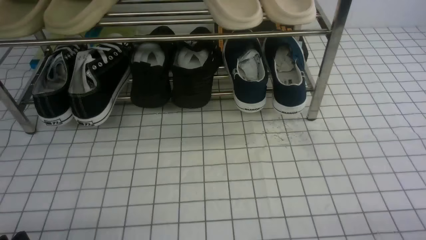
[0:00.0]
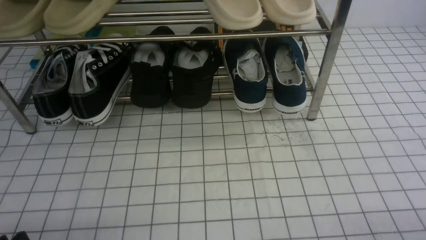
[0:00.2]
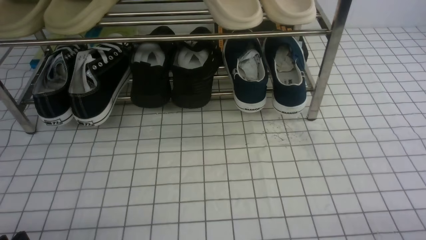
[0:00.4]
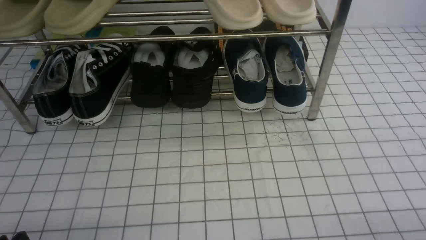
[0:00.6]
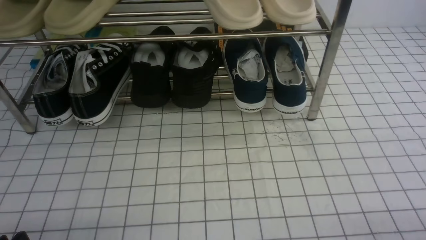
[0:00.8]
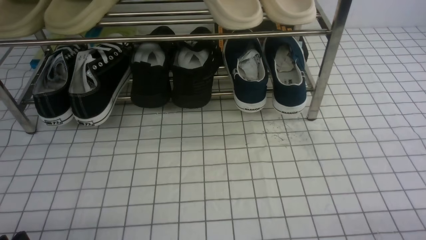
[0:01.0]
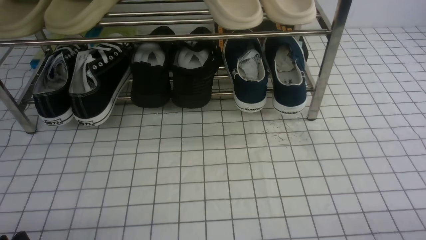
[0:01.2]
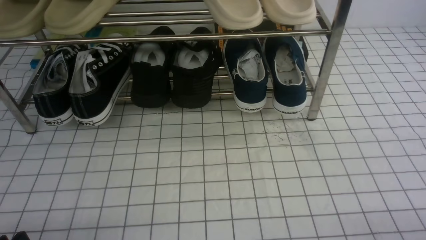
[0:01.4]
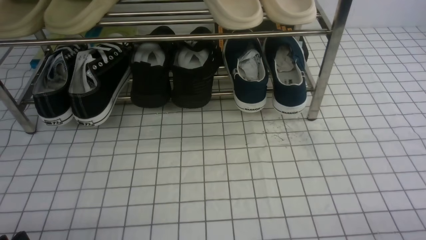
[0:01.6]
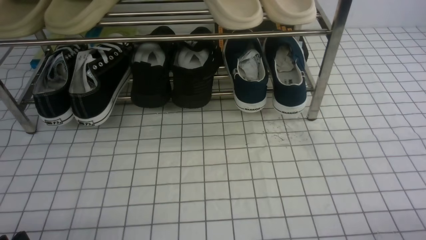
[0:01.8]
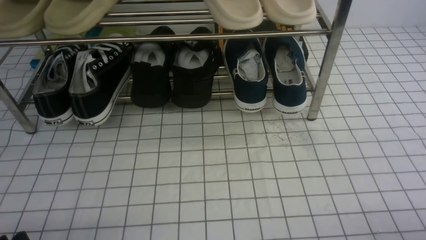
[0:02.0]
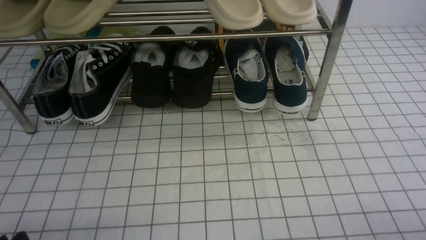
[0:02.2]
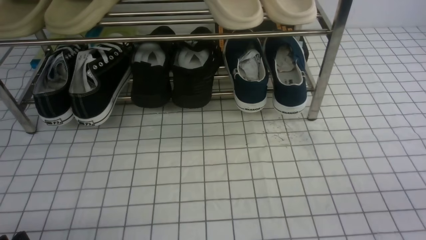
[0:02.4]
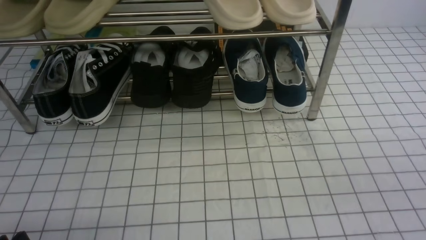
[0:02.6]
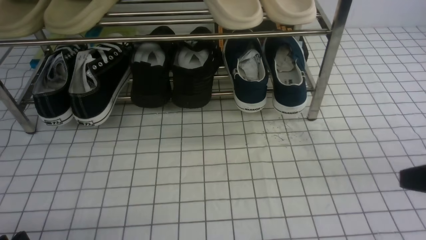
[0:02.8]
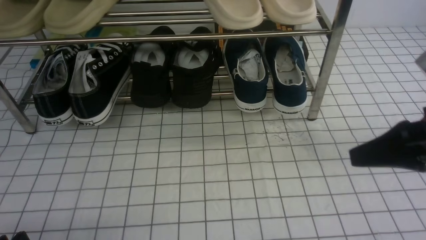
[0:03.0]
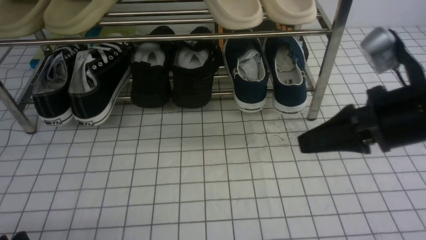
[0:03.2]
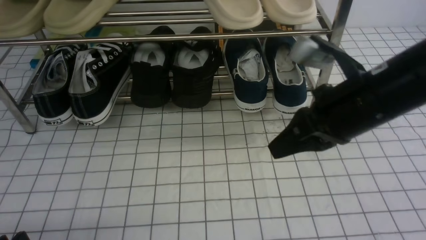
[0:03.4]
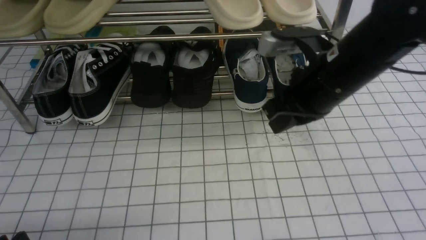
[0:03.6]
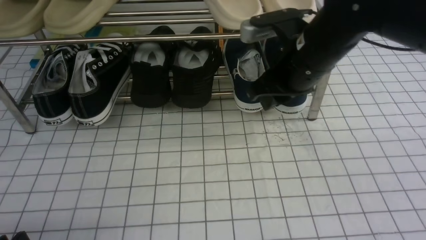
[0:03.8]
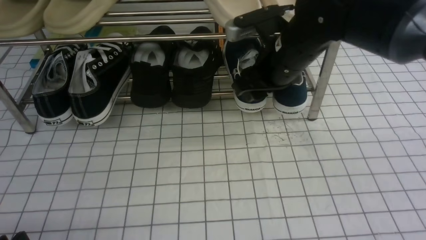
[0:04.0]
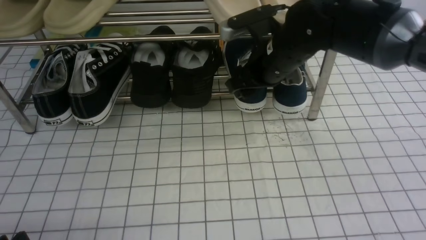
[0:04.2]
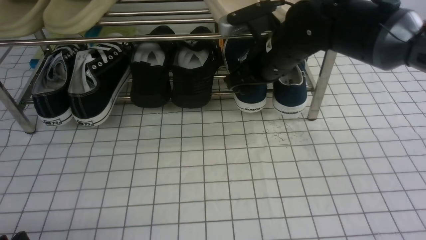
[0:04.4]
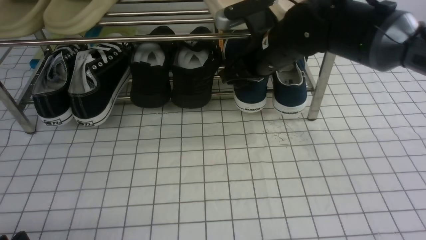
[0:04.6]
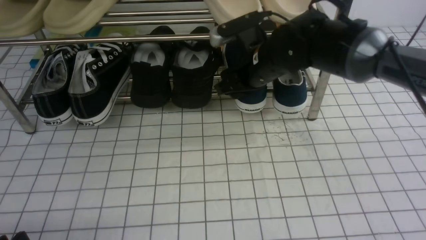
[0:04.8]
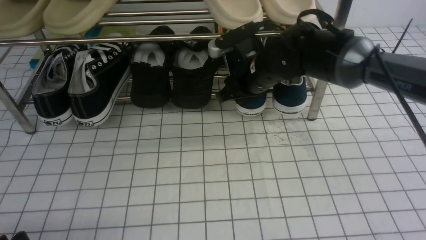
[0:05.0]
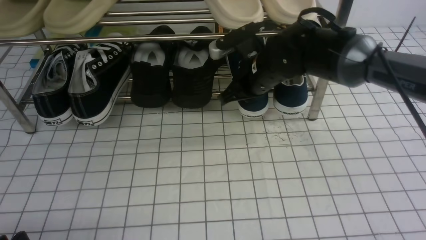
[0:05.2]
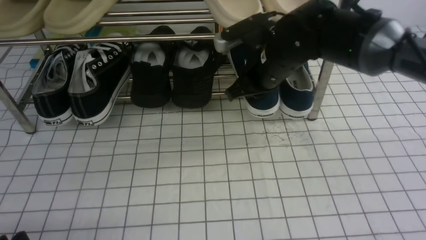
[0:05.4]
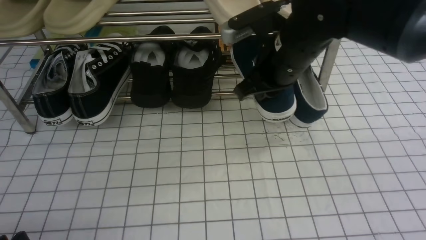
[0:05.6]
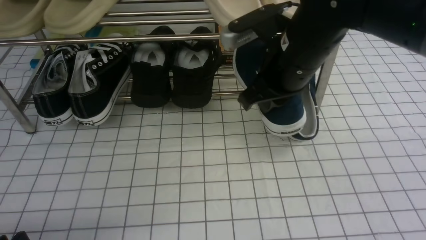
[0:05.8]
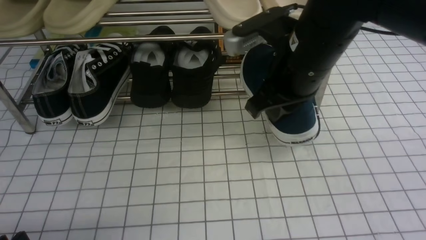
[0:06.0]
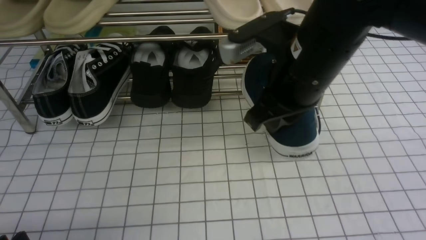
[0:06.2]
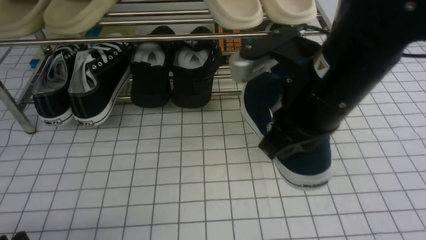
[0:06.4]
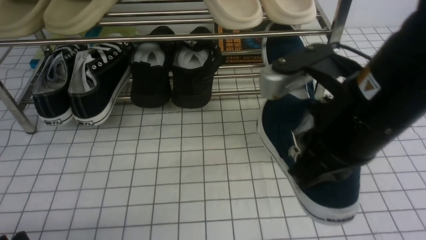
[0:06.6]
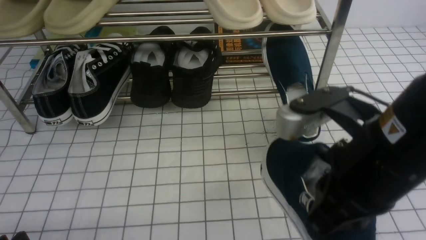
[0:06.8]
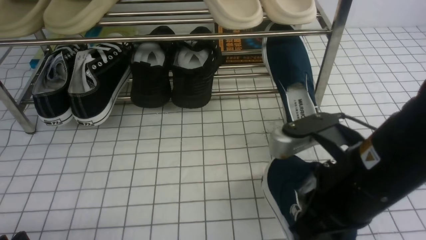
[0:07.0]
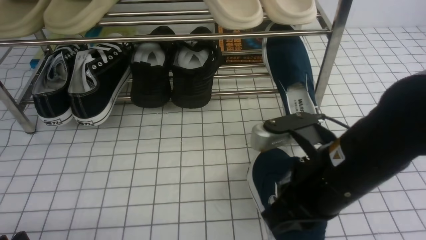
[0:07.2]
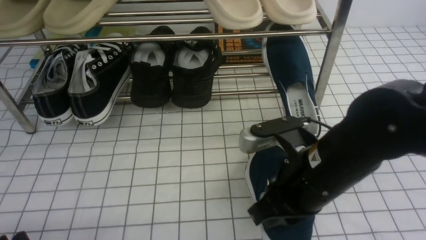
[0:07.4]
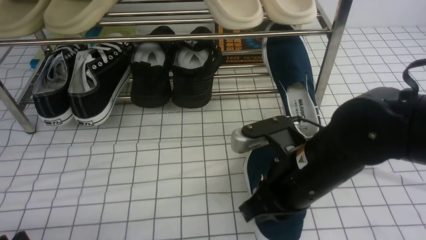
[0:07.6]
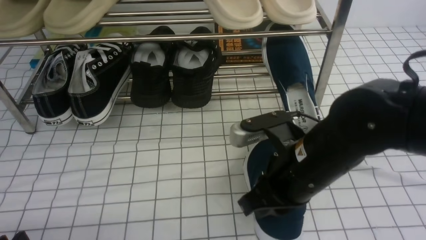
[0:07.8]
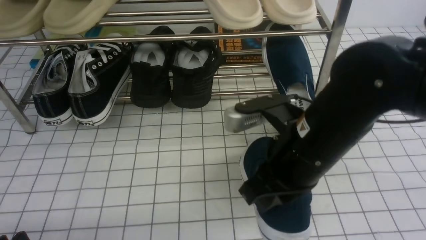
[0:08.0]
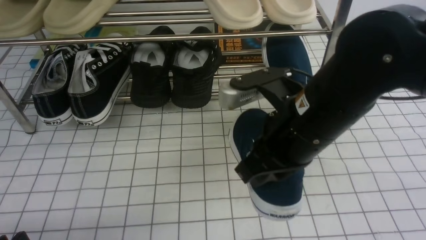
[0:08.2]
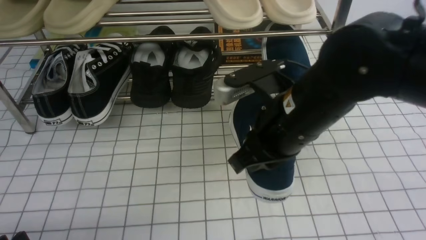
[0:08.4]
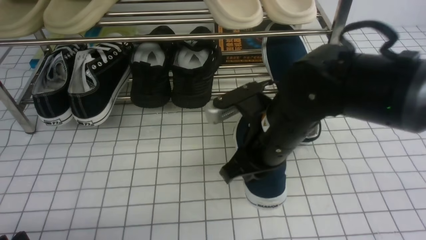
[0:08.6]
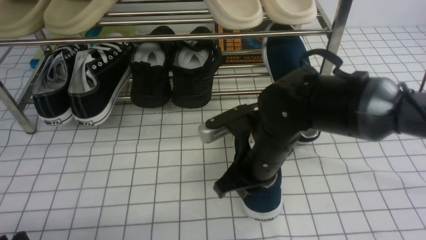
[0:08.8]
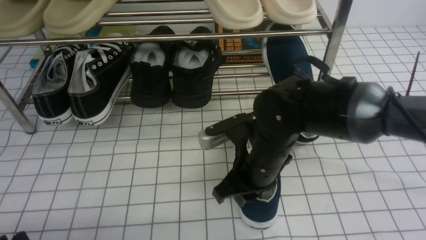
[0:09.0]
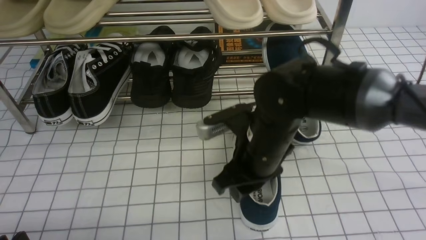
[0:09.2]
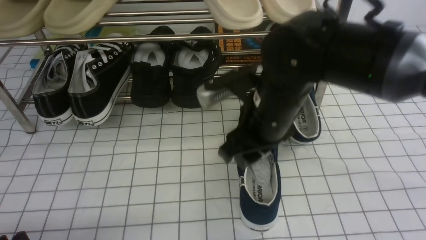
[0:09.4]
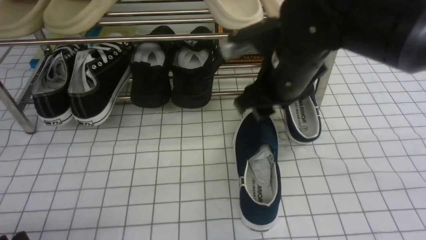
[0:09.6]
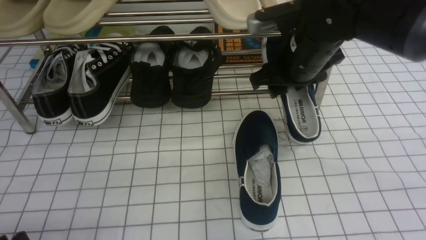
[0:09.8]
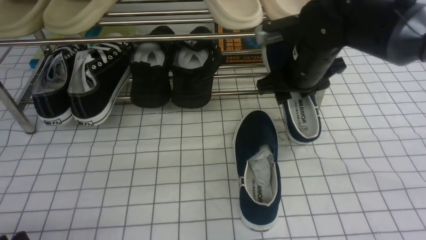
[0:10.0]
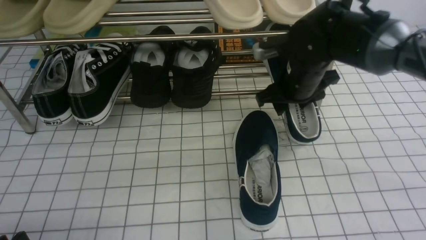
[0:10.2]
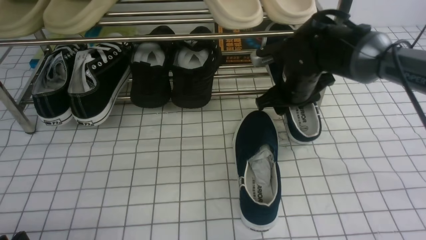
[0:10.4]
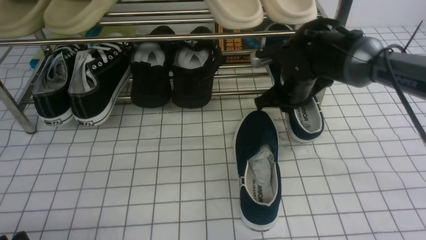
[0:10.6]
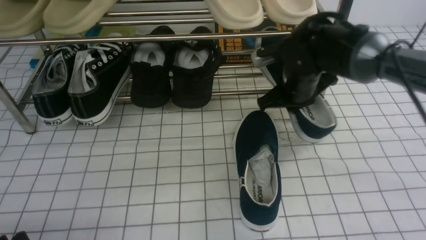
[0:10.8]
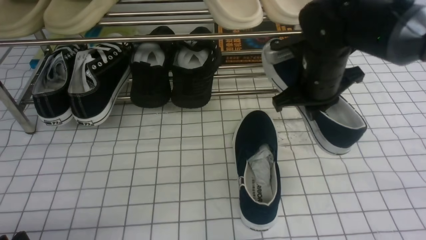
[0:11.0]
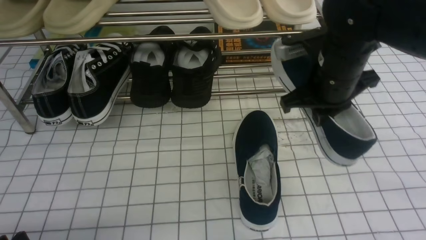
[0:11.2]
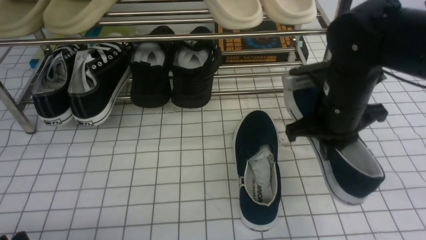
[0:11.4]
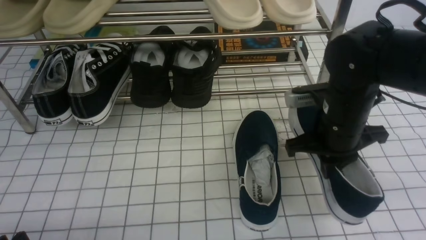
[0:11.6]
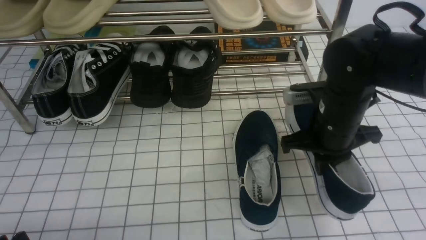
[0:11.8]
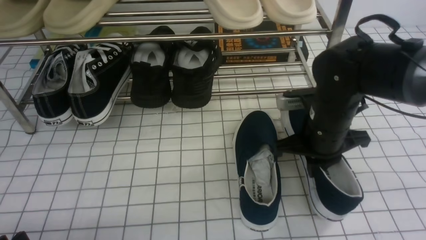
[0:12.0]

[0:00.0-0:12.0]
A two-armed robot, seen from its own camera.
Step, 0:00.0 to 0:05.0: use the right arm to clamp a shoe on the right side of the shoe rack.
Step, 0:05.2 to 0:09.2: use the right arm to take out the clamped shoe from the shoe rack and put it down.
Step, 0:09.6 to 0:10.6: use the right arm to clamp a shoe on the right side of the shoe rack.
0:01.6 to 0:03.0: The right gripper is displaced upward, forward and to the left by about 20 cm, and closes.
0:03.0 to 0:04.4: The right gripper is displaced forward and to the left by roughly 25 cm, and opens up.
0:04.4 to 0:06.0: The right gripper moves backward and upward, about 10 cm, and closes.
0:06.0 to 0:07.6: The right gripper shifts approximately 10 cm downward and backward.
0:07.6 to 0:09.0: The right gripper shifts approximately 5 cm forward.
0:09.0 to 0:10.4: The right gripper is displaced forward and to the right by about 15 cm.
0:10.4 to 0:12.0: The right gripper heads backward, covering roughly 10 cm, and closes.

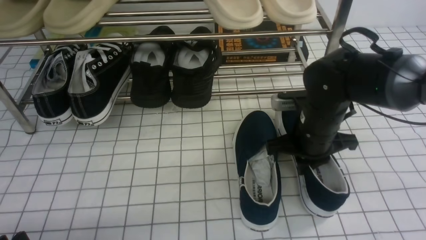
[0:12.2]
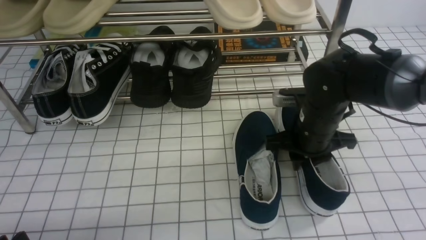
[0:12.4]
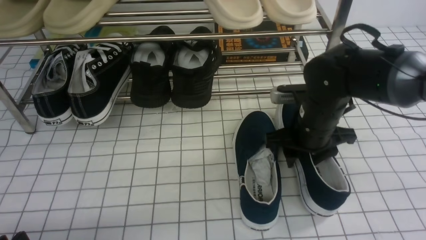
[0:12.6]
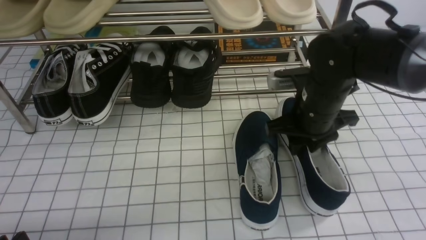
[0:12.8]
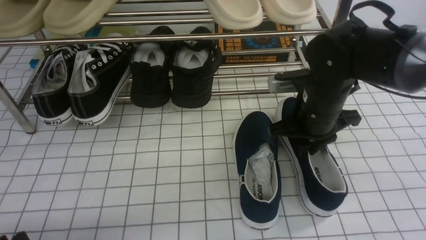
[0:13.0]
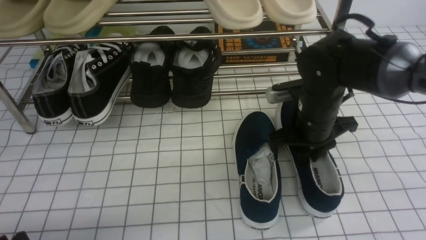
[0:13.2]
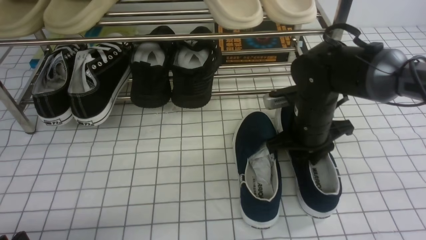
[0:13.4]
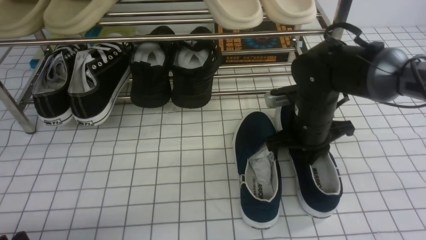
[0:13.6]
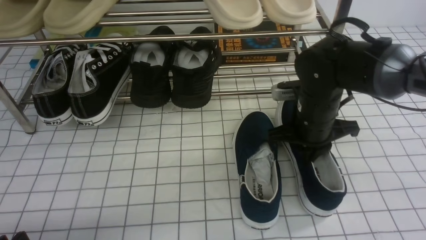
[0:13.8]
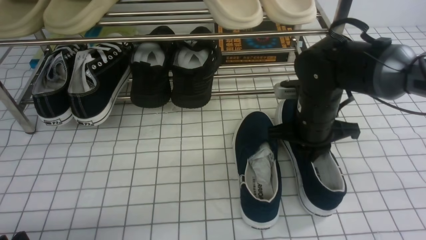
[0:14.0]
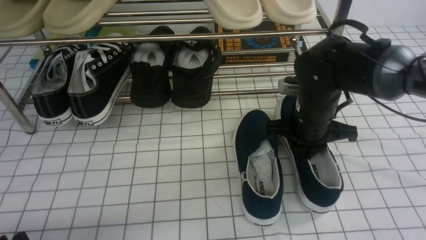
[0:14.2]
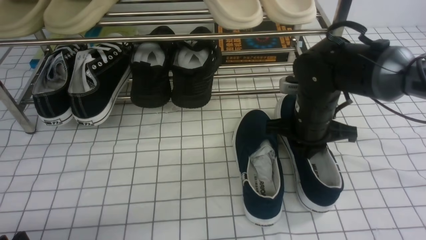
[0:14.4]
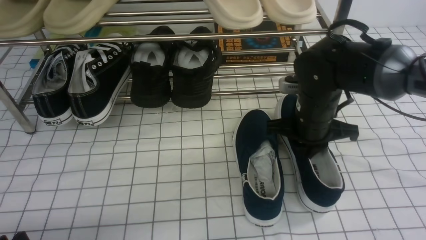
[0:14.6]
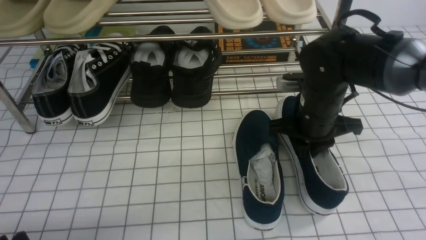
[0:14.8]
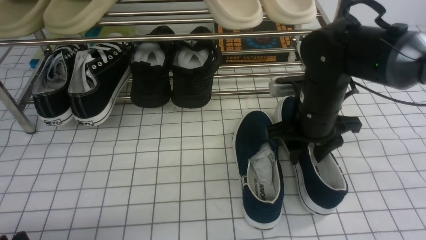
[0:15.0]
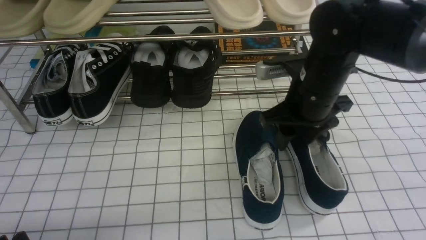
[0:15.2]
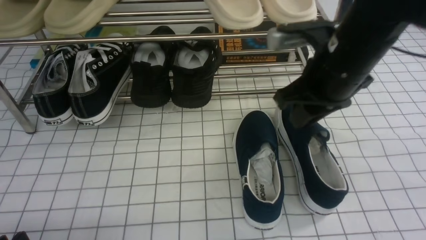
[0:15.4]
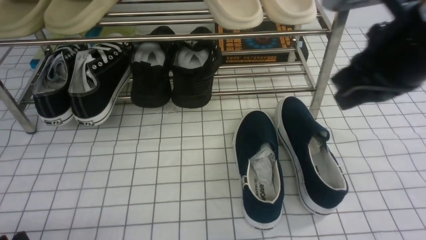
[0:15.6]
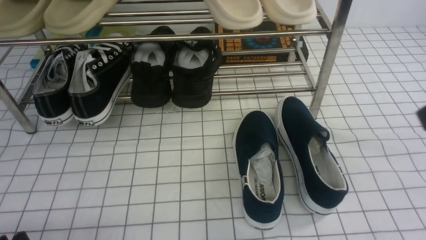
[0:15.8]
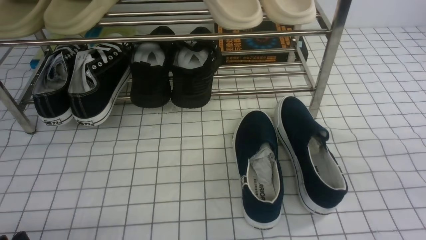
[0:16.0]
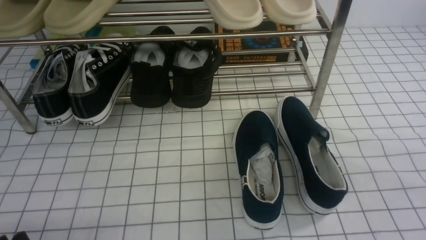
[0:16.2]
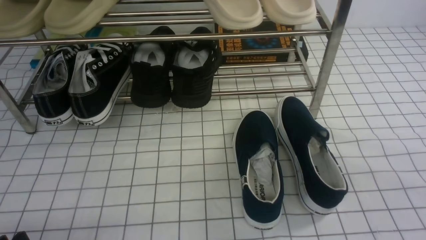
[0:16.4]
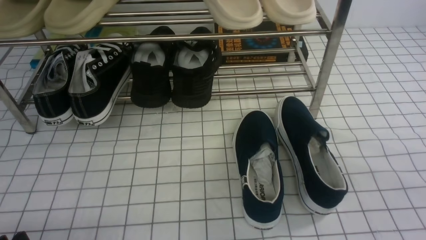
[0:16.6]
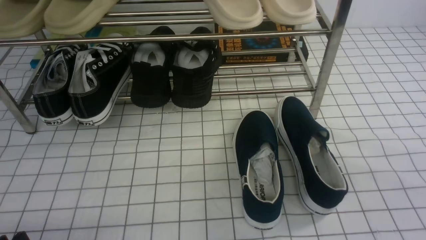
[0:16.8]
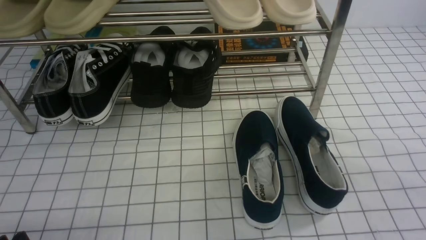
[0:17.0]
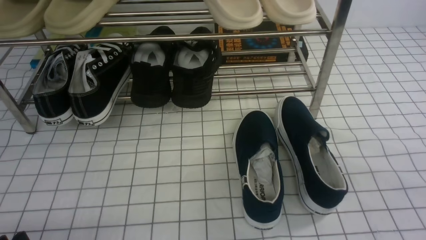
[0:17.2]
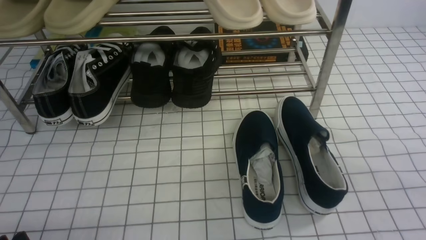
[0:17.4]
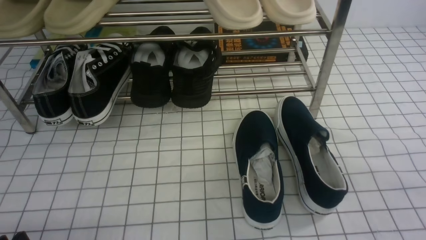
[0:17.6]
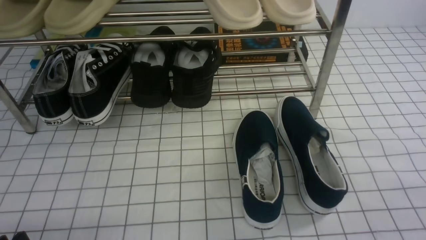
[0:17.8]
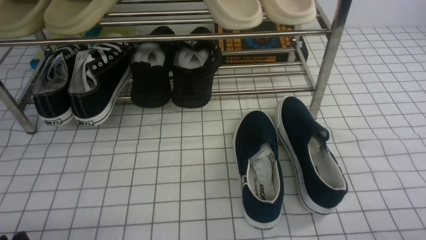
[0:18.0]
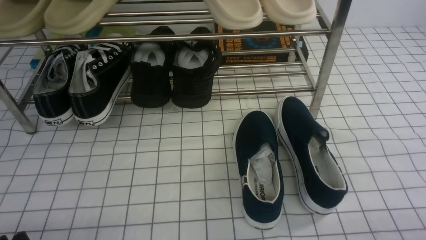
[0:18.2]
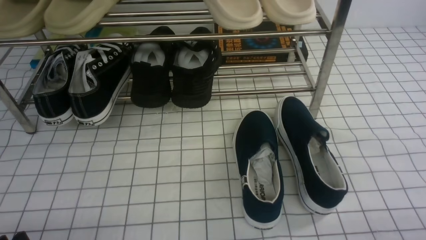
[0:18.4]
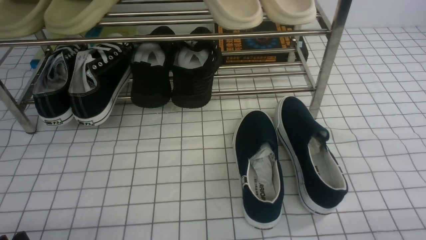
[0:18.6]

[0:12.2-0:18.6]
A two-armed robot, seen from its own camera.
Step, 0:12.2 to 0:15.2: use the right arm to take out the clamped shoe from the shoe rack and put it down.
0:12.2 to 0:13.8: The right gripper opens and closes again.
0:13.8 to 0:15.4: The right gripper goes some 15 cm upward and backward.
0:15.4 to 0:17.0: The right gripper is displaced backward and to the right by some 30 cm, and closes up.
